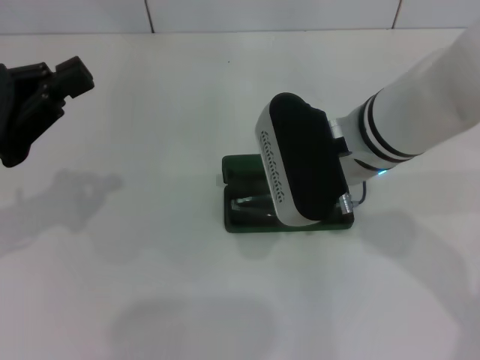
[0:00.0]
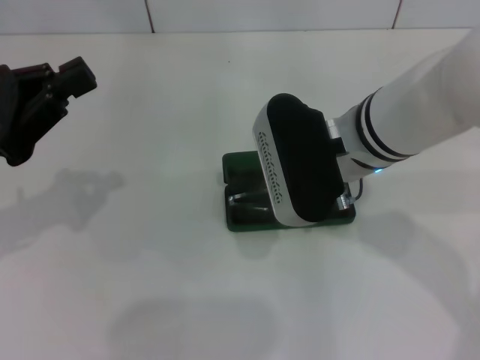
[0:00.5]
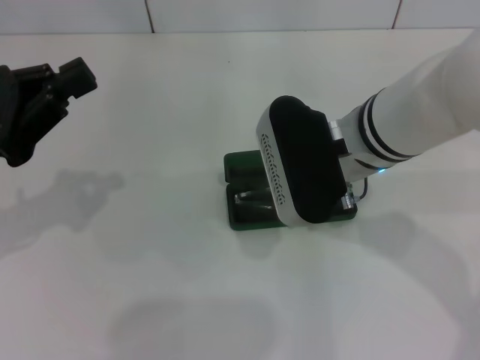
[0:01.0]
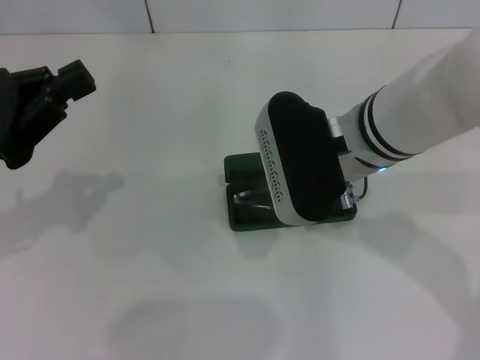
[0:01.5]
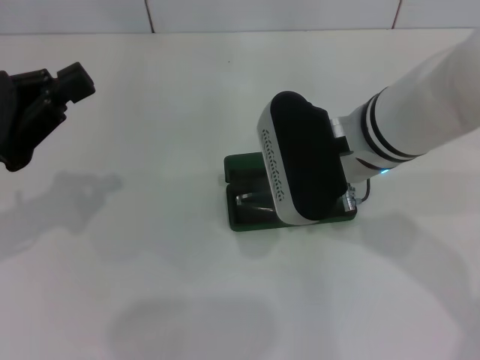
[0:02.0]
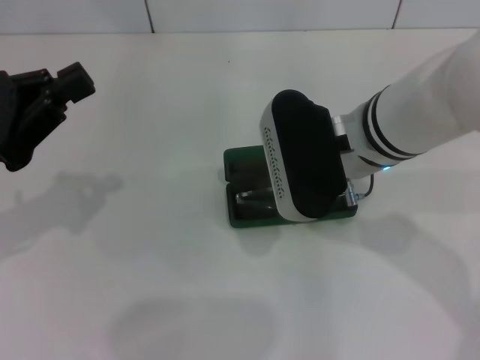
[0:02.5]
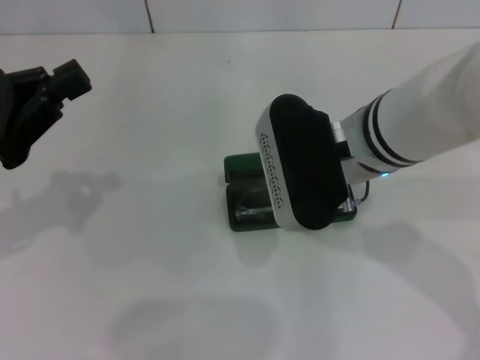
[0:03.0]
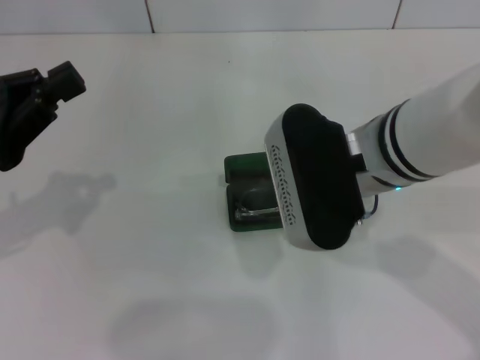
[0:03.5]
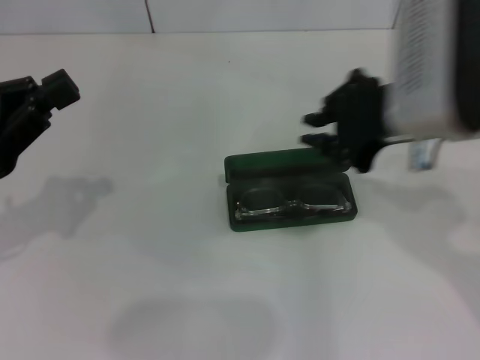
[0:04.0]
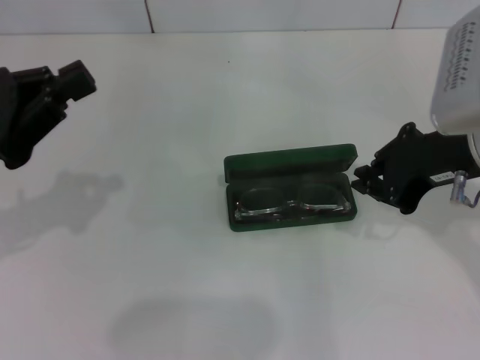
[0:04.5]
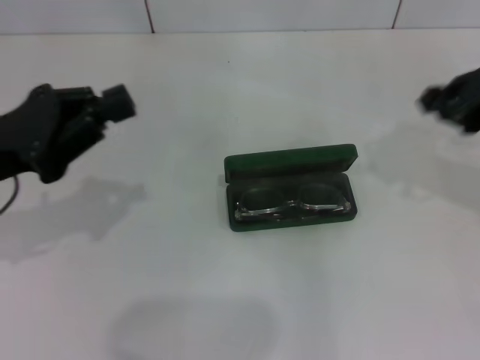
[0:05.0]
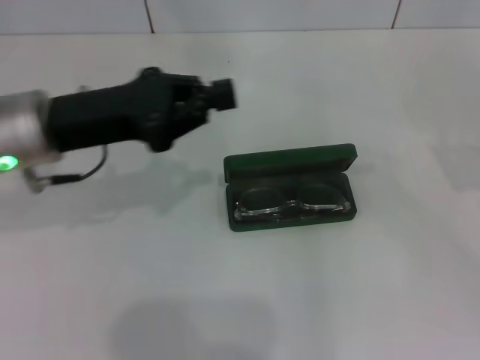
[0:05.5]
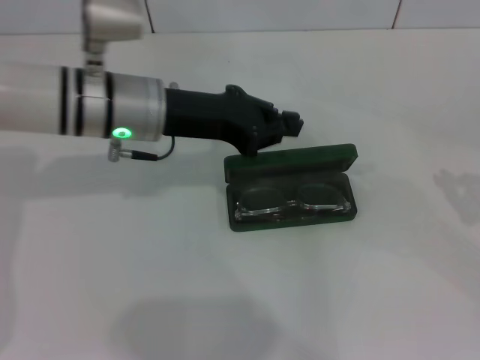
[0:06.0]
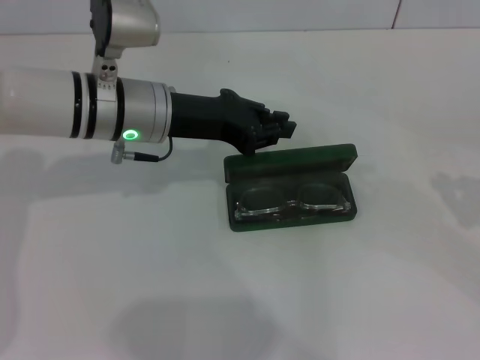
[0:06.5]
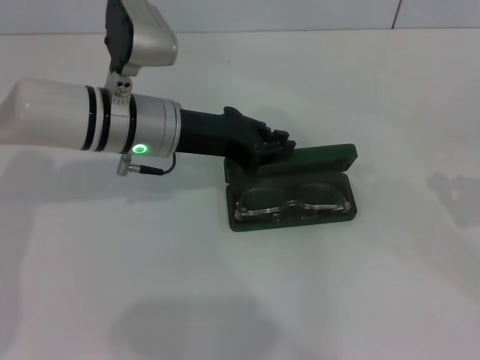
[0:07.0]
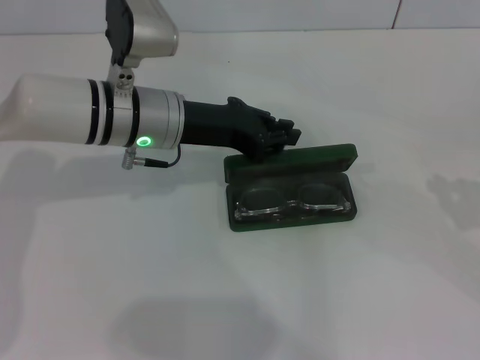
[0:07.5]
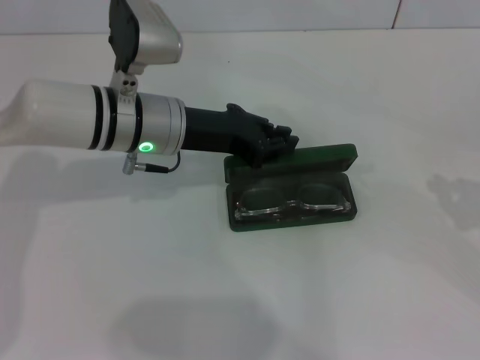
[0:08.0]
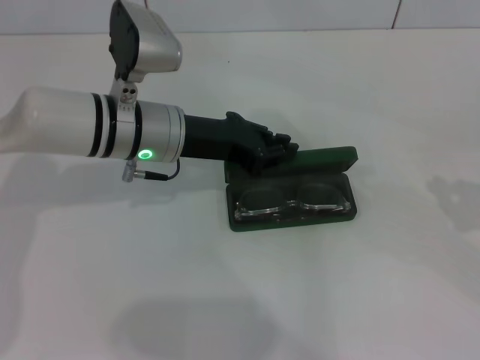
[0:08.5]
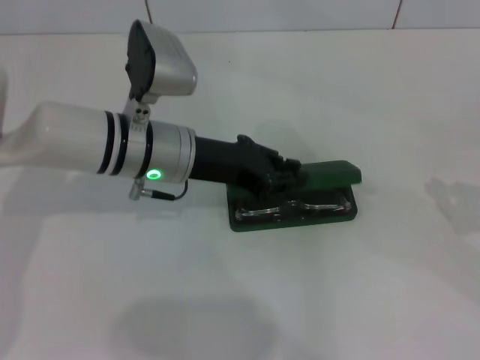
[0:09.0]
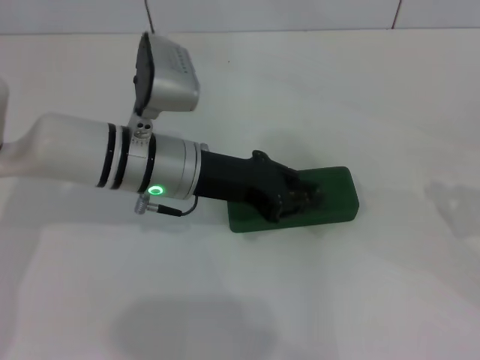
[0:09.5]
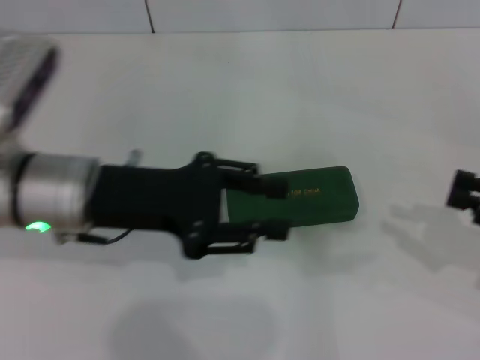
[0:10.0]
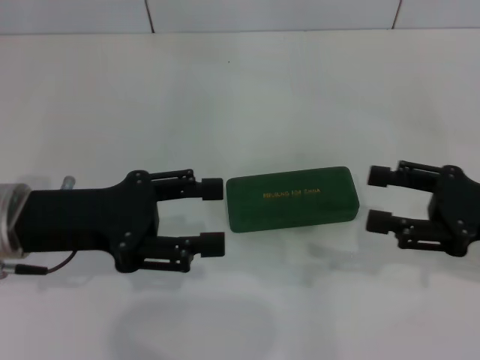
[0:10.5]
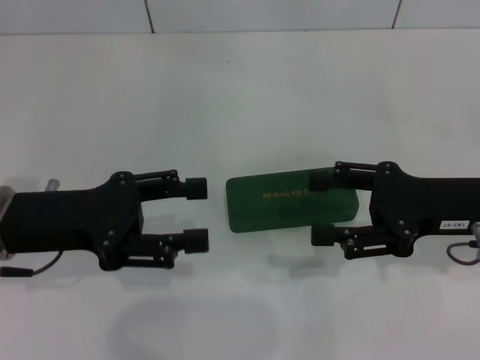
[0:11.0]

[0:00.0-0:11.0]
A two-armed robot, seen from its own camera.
Step, 0:00.0 to 0:03.0: Put the glasses into the case with your right hand.
Step, 0:03.5 to 0:09.0: Close the glasses case with your left hand.
0:00.0 to 0:02.0: Both grippers stay about where they are.
0:02.0 to 0:03.5: The grippers make only small movements.
0:03.5 to 0:05.5: The right gripper travels to the right by some 30 cm, while the left gripper shifts roughly 10 cm to the right and forward.
0:05.5 to 0:07.5: The left gripper heads to the right and forward, covering some 10 cm. The right gripper shifts roughly 5 cm downward.
0:07.5 to 0:09.0: The grippers stay close to where they were, moving slightly.
0:09.0 to 0:11.0: The right gripper shifts about 15 cm to the left, and opens, while the left gripper travels to the left and backward by some 15 cm, and opens its fingers.

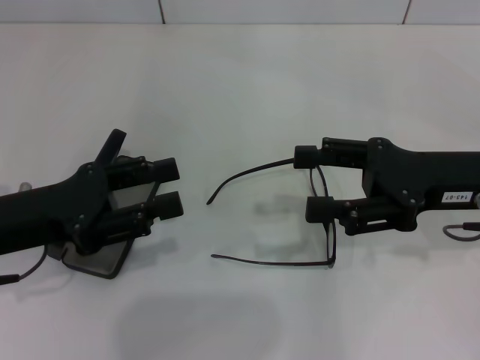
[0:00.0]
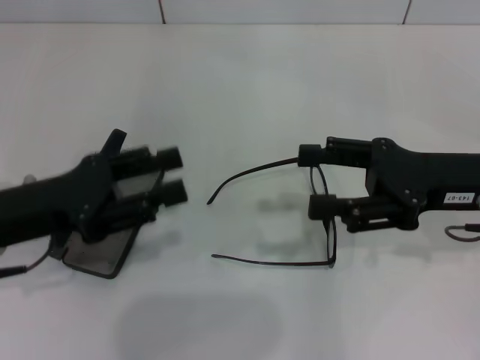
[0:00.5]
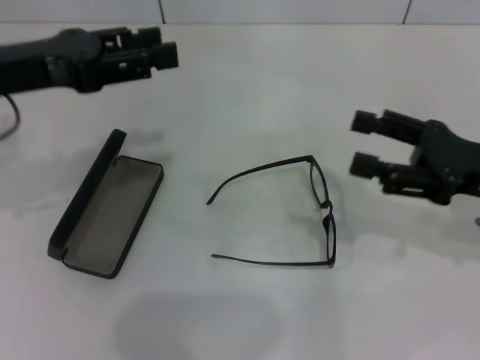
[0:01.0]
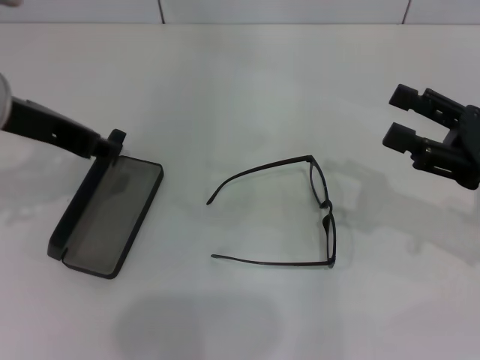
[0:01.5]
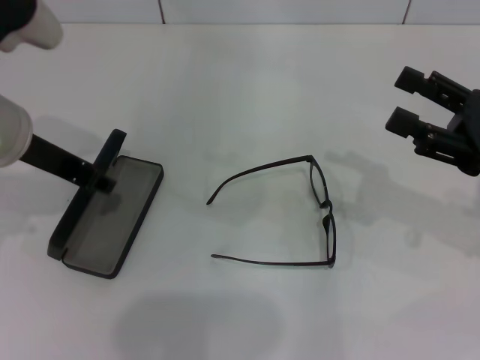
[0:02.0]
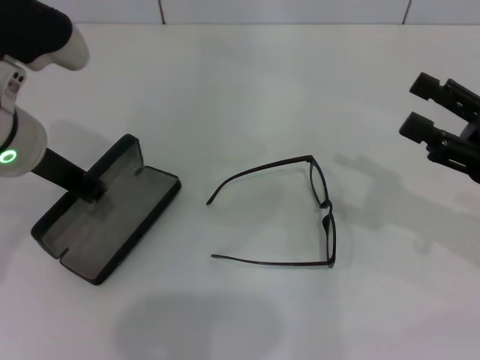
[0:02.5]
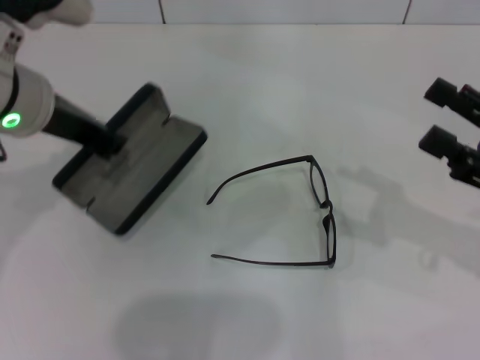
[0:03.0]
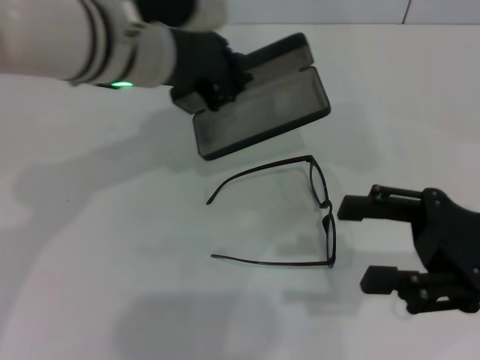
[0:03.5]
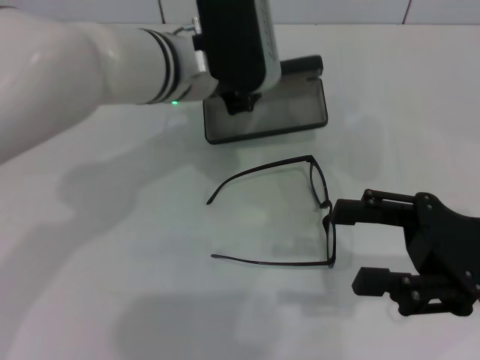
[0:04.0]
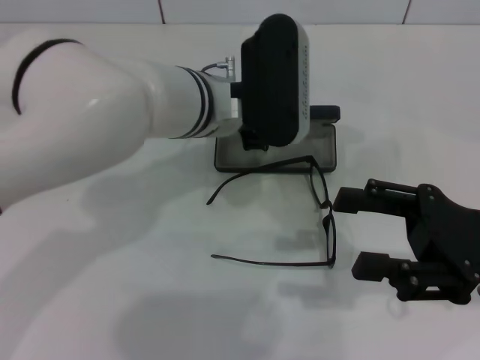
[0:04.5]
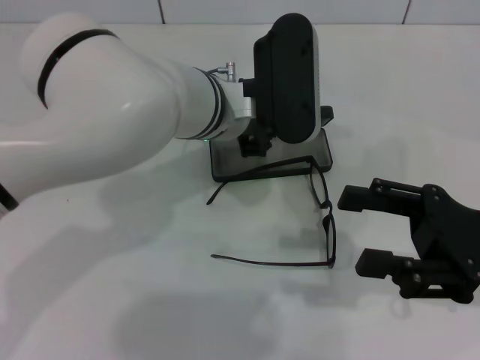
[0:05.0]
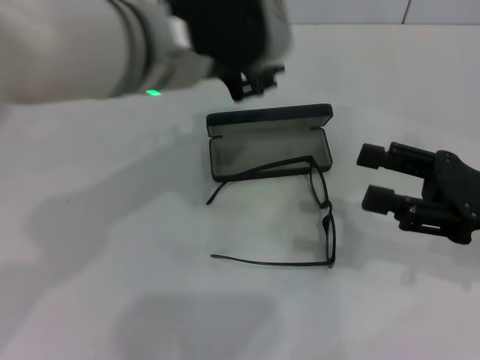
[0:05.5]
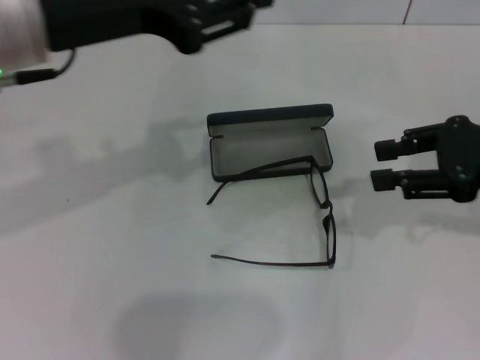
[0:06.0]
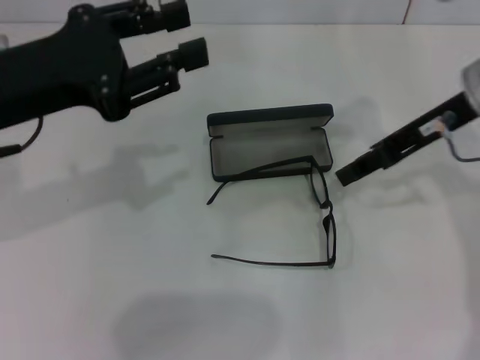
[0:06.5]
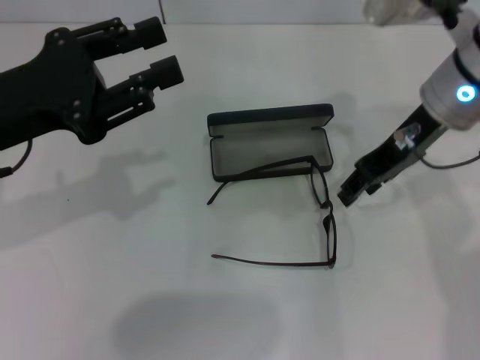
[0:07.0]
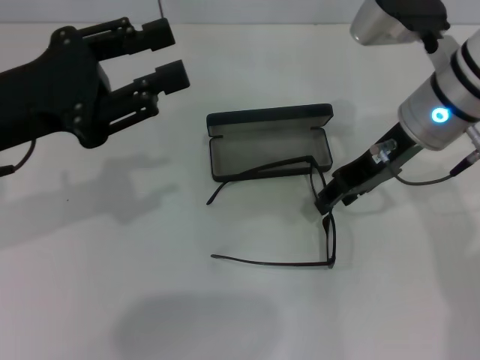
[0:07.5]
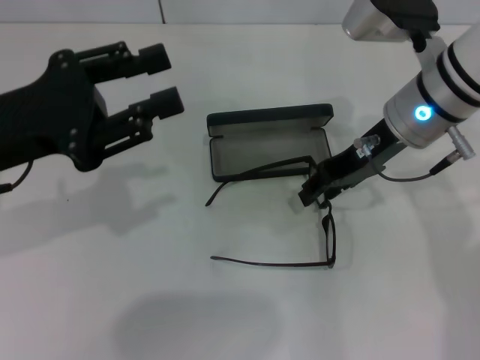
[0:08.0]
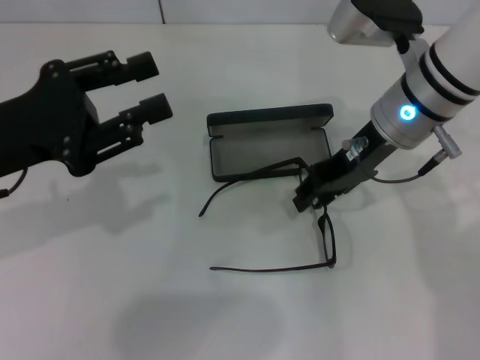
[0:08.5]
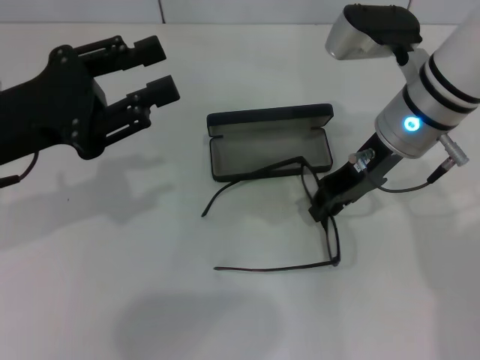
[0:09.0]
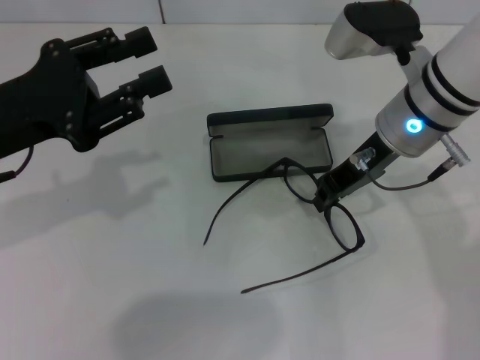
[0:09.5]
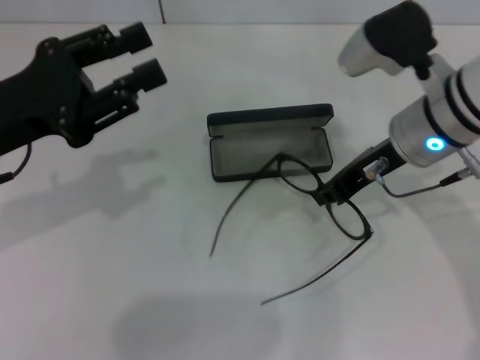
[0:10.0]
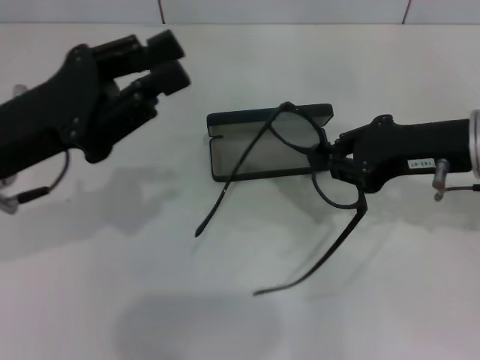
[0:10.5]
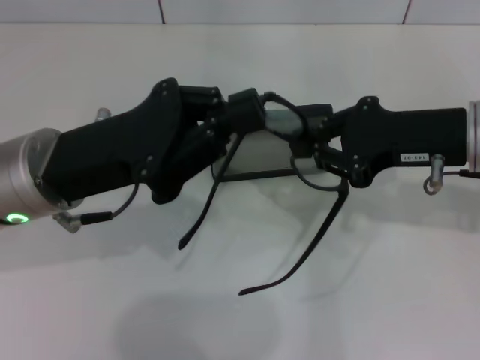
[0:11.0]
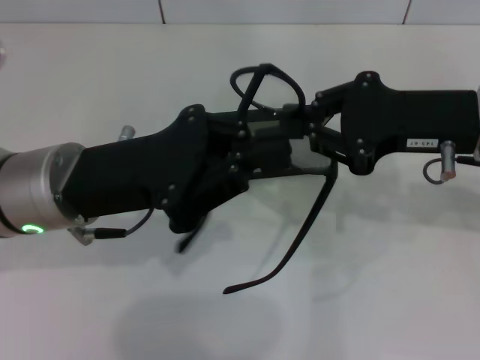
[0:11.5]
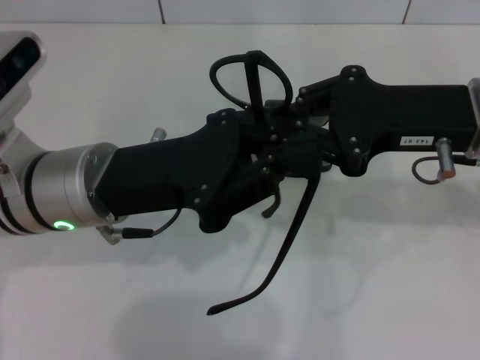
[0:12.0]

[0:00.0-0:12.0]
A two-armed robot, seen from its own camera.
Step, 0:00.0 to 0:02.0: Grab the glasses case with your left hand.
Step, 0:02.5 to 0:05.0: Place the glasses case in the center of the table with your left hand.
Step, 0:05.5 to 0:09.0: Grab the eyeglass frame with your right hand.
0:00.0 to 0:02.0: The right gripper moves to the right, about 5 cm. Meanwhile the left gripper shifts some 10 cm upward and forward.
0:02.0 to 0:04.0: The left gripper moves to the right and forward, some 15 cm, and closes its fingers, while the right gripper ends up some 5 cm from where it was.
0:04.0 to 0:06.0: The right gripper heads upward and forward, covering roughly 10 cm; the left gripper is displaced upward, to the left and backward by roughly 20 cm, and opens up.
0:06.0 to 0:08.0: The right gripper moves to the left and forward, approximately 15 cm; the left gripper travels downward and to the left by roughly 15 cm.
0:08.0 to 0:10.0: The right gripper closes.
0:10.0 to 0:12.0: The right gripper changes place by about 10 cm; the left gripper heads to the right, covering roughly 10 cm, and closes its fingers.

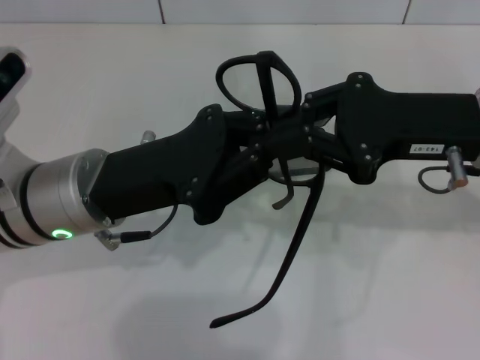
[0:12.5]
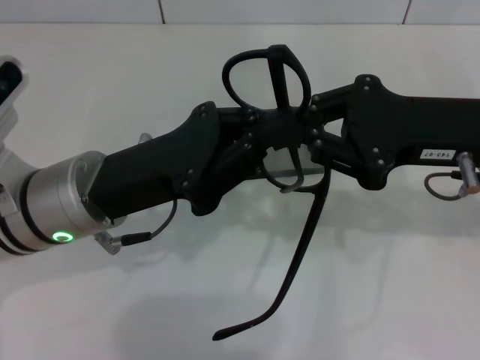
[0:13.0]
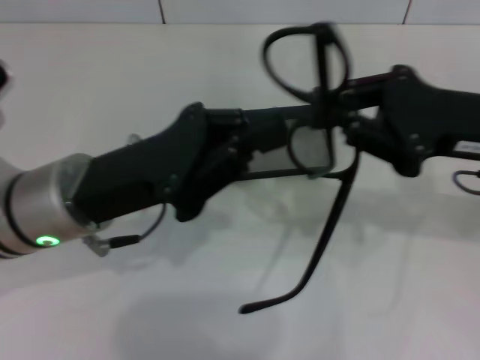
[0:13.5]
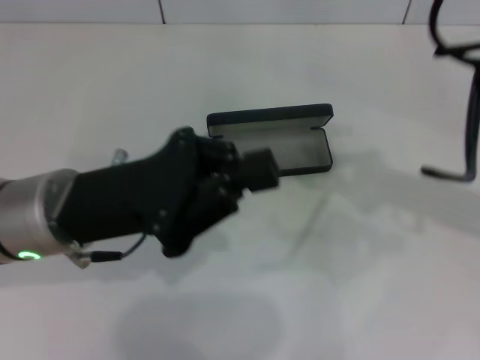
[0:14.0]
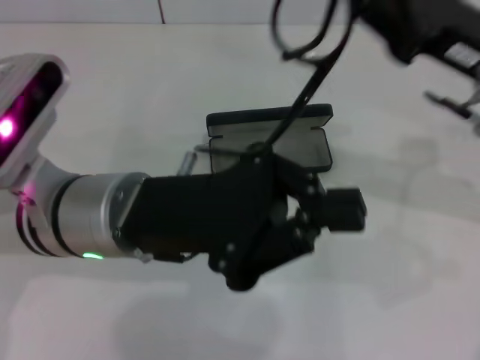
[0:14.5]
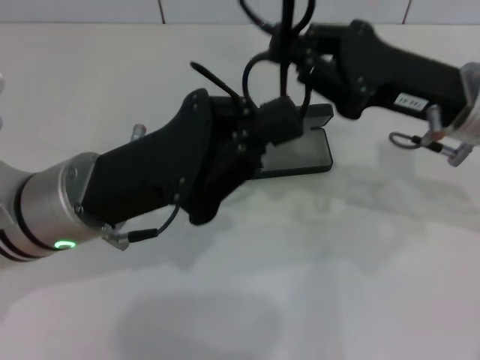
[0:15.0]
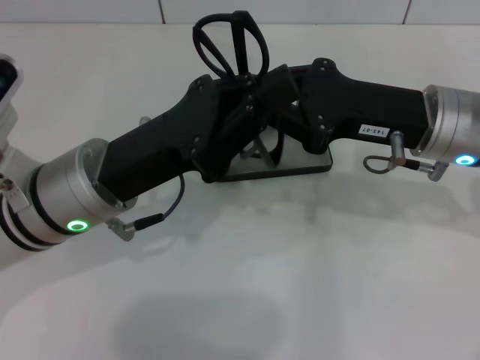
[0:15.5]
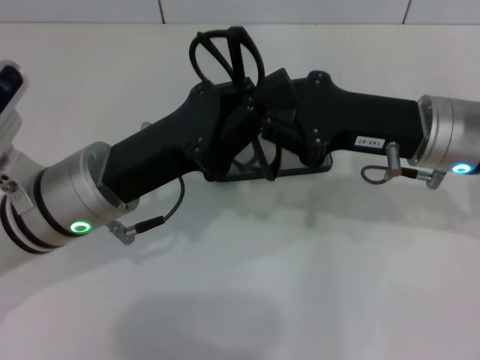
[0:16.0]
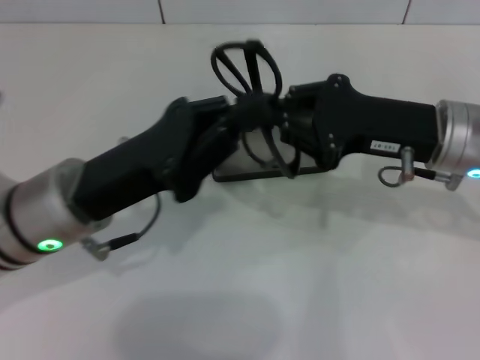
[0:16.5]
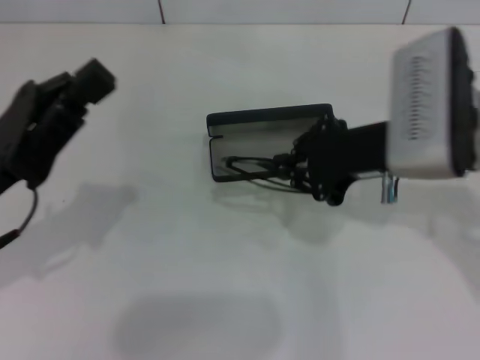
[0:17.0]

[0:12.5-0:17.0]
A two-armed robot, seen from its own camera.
Step, 0:12.5 to 0:15.5: Fold the frame with your left hand.
0:12.5 to 0:14.5: The right gripper goes to the right and returns, approximately 10 cm each way.
0:14.5 to 0:17.0: The right gripper shifts by roughly 5 cm. Meanwhile the left gripper goes some 10 cm to the left.
